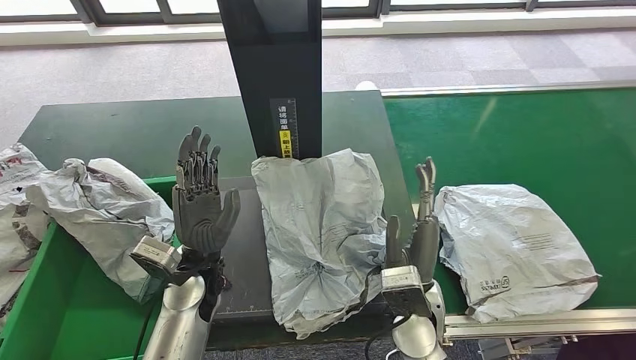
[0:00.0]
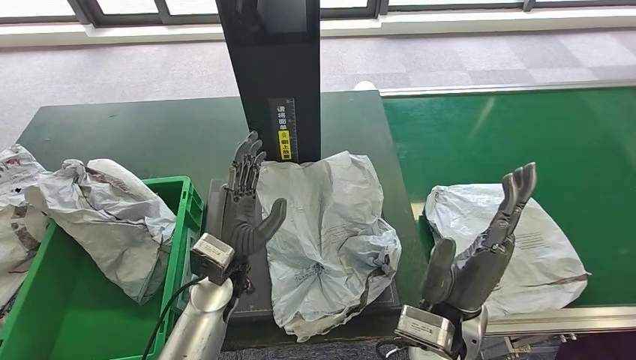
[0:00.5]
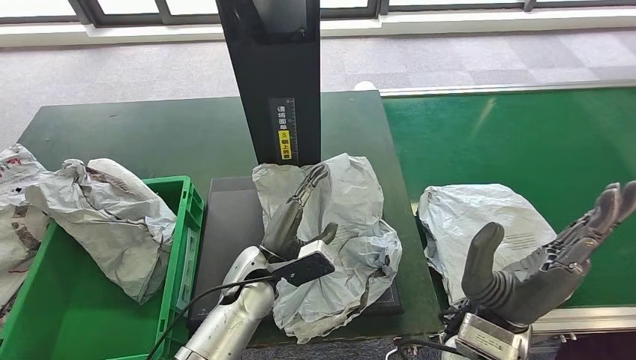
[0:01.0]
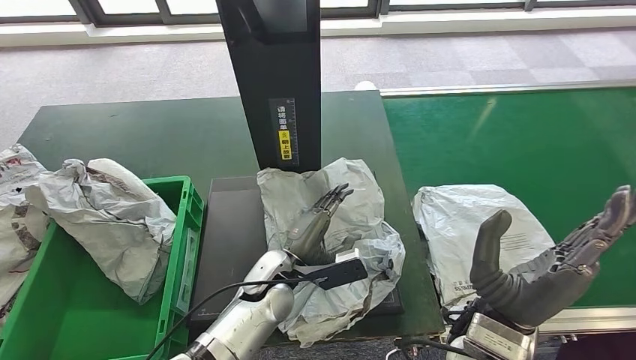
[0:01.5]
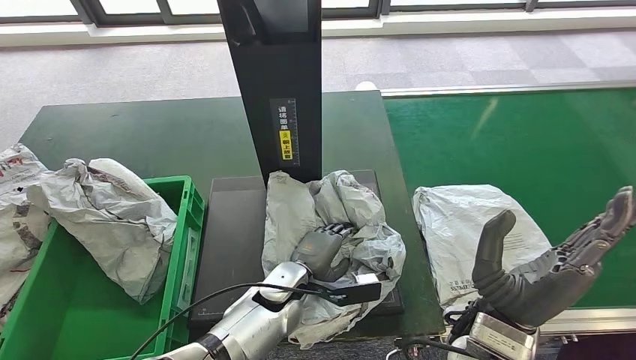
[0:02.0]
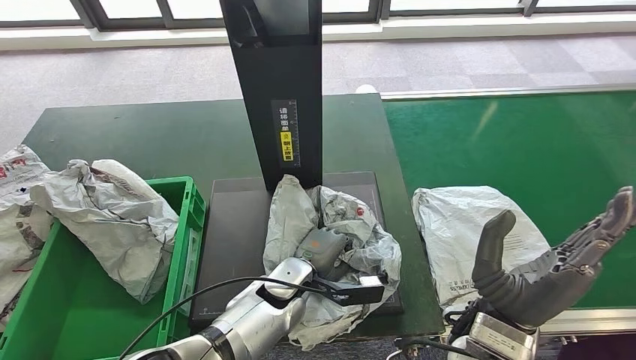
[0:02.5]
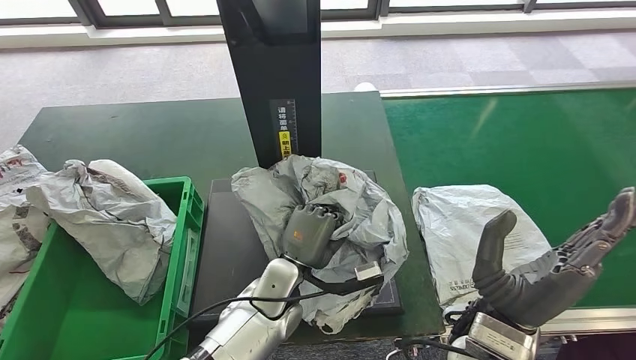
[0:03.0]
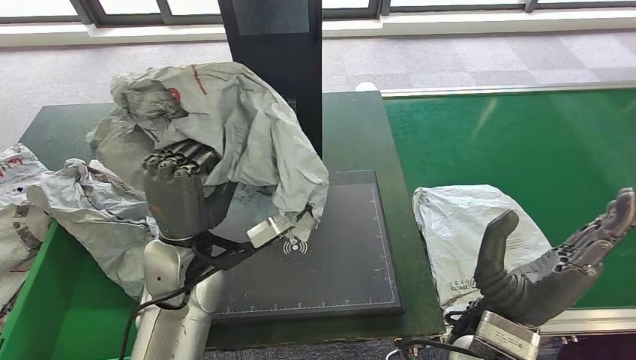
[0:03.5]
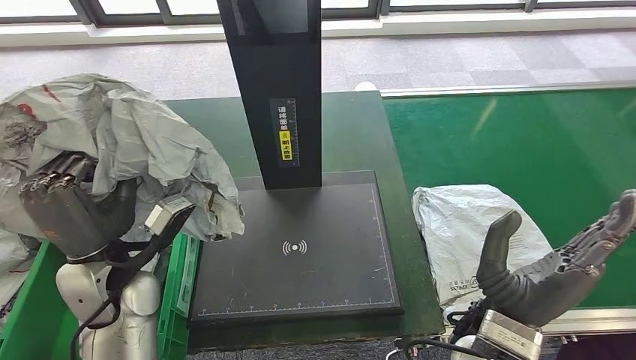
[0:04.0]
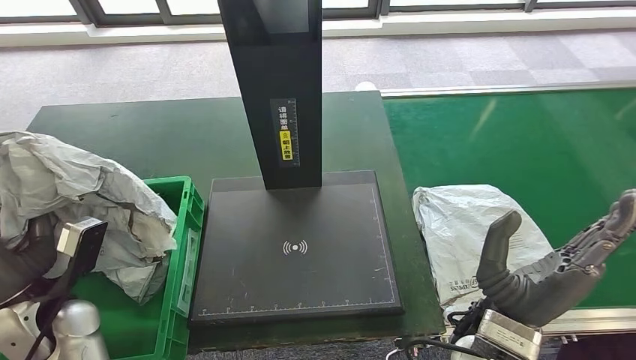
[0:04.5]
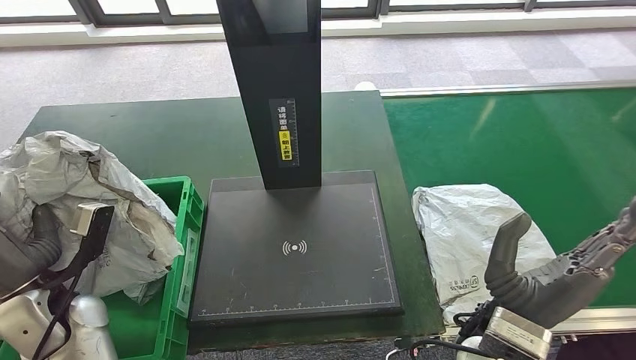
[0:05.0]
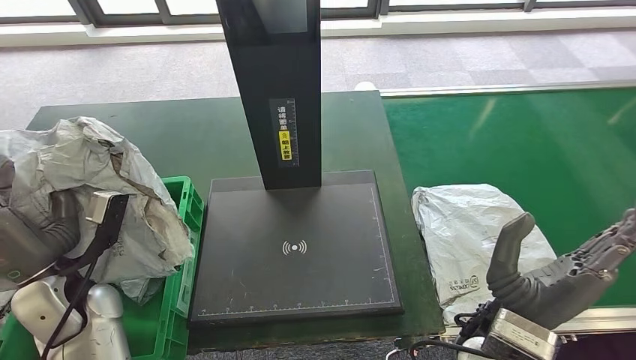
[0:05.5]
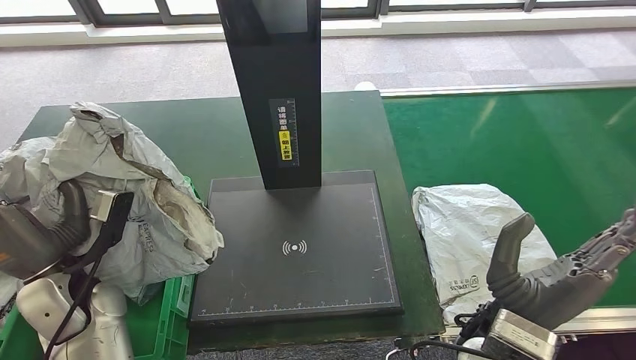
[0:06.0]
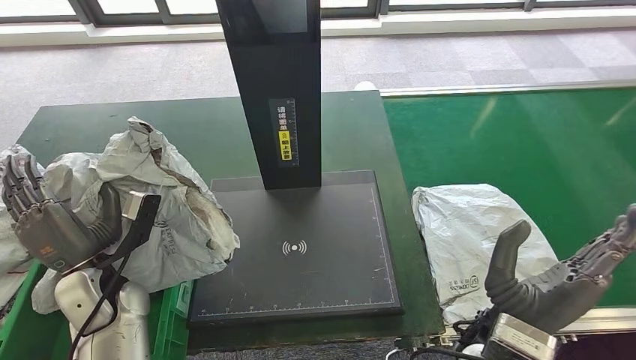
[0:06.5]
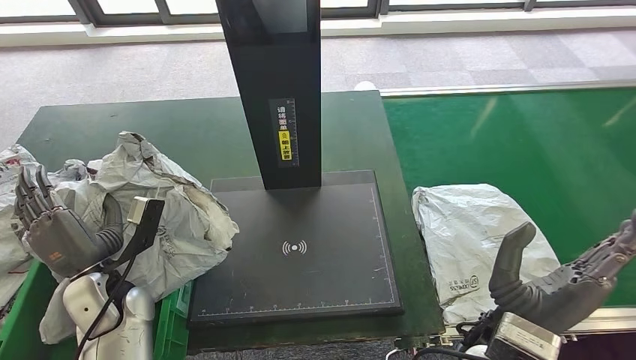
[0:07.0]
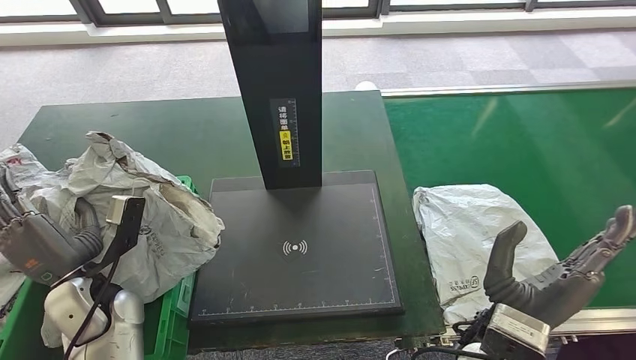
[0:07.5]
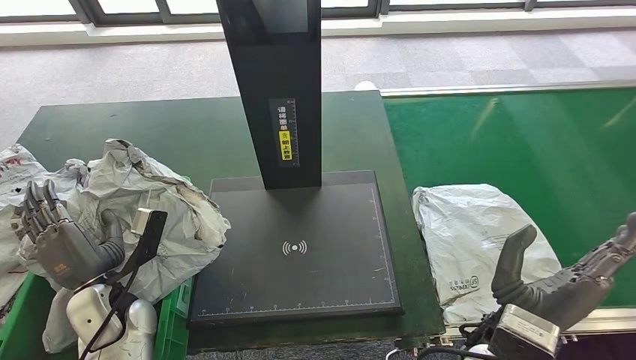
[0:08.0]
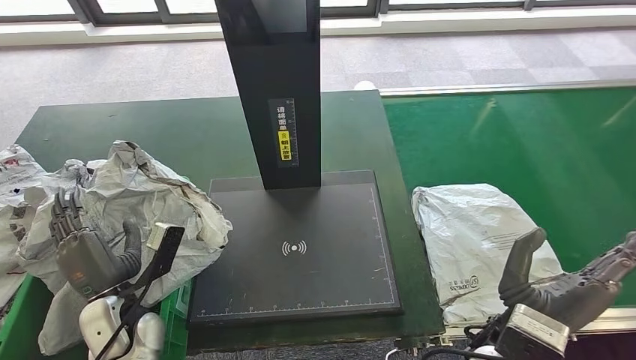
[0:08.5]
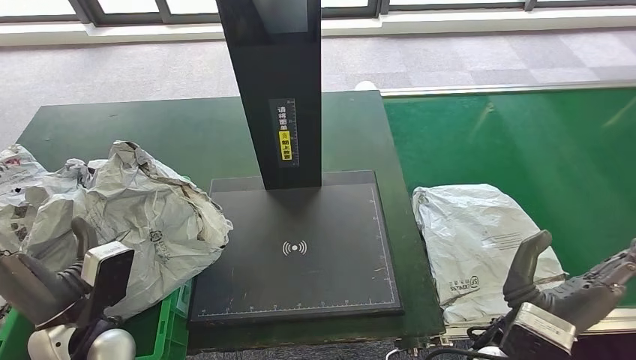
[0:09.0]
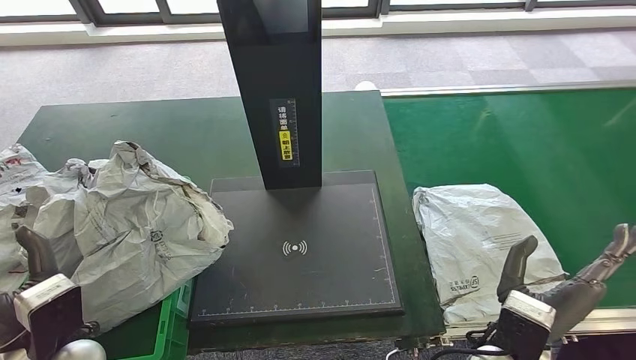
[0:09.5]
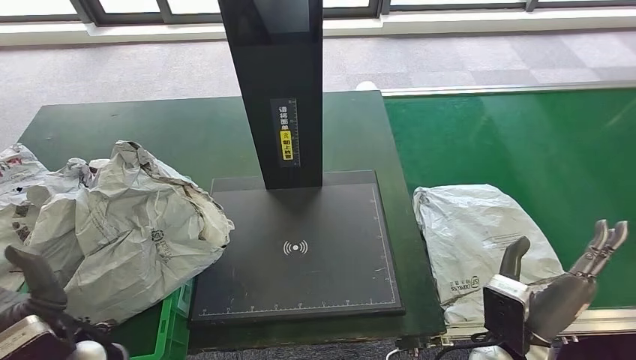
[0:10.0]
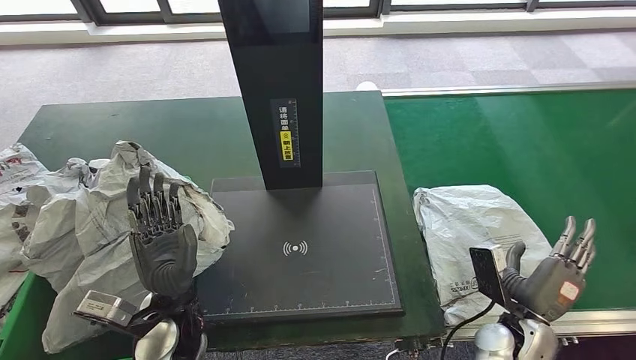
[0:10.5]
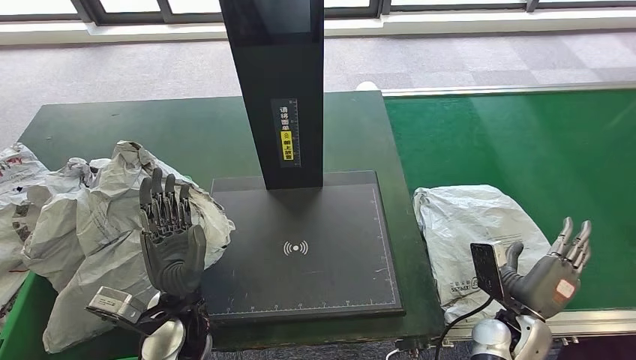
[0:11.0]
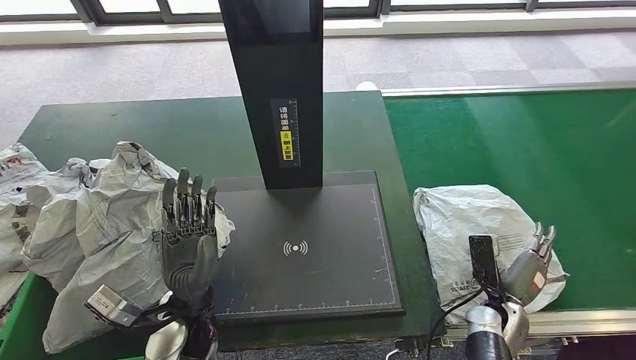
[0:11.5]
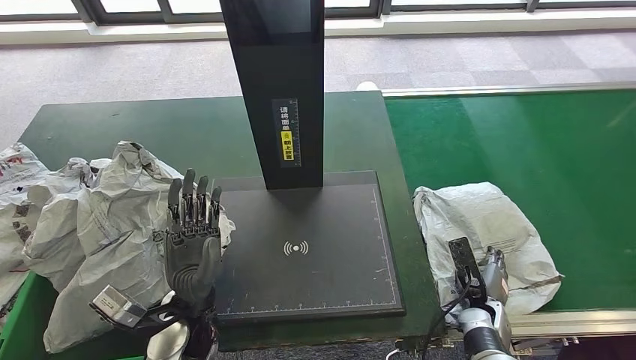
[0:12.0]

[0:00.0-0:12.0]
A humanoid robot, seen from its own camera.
Step, 0:01.0 to 0:03.5: Pick up the parcel from the inbound machine.
Step, 0:04.0 to 0:09.0: Place the parcel into the delivery box.
0:06.0 to 0:08.0: The left hand heads downward, covering roughly 5 cm.
0:08.0 to 0:10.0: The right hand shifts by approximately 5 cm; the left hand travels backward by about 5 cm.
0:10.0 to 0:12.0: The right hand shifts roughly 15 cm downward and forward, while the left hand goes roughly 15 cm to the right.

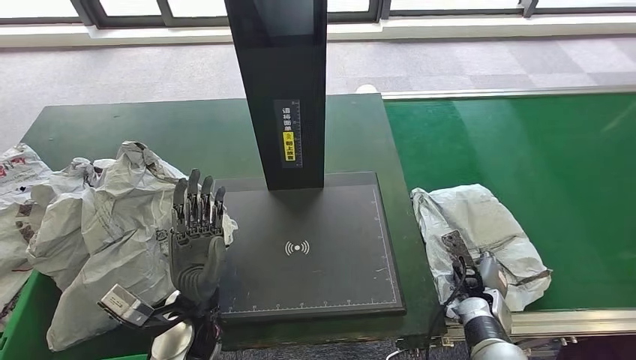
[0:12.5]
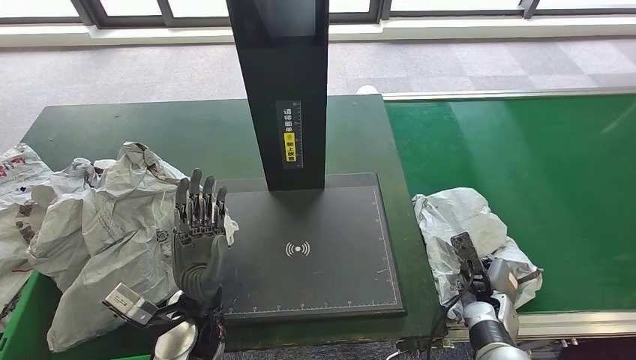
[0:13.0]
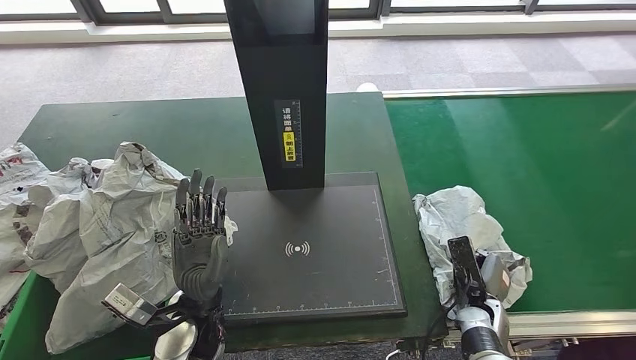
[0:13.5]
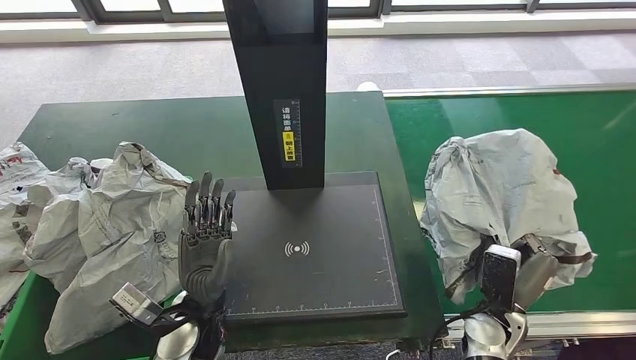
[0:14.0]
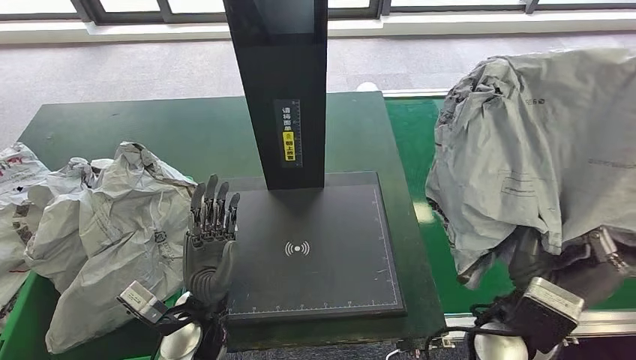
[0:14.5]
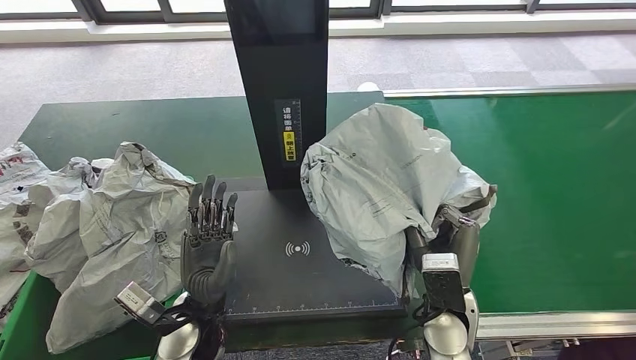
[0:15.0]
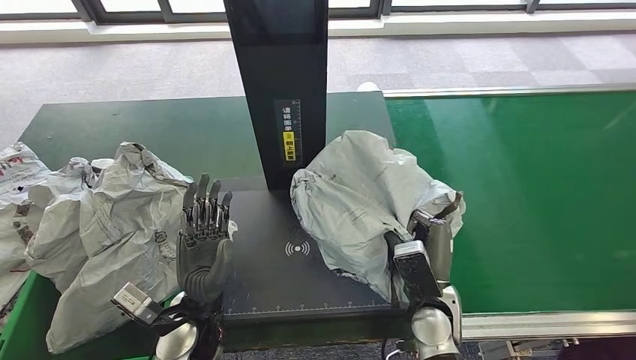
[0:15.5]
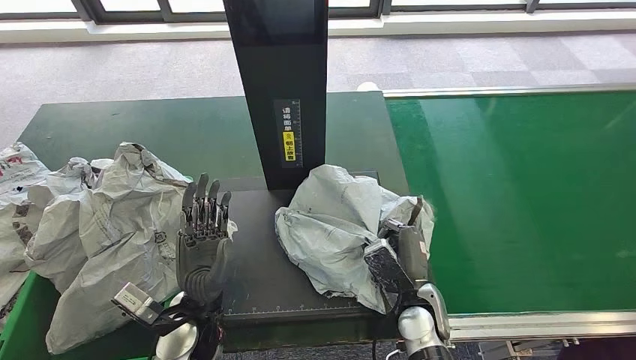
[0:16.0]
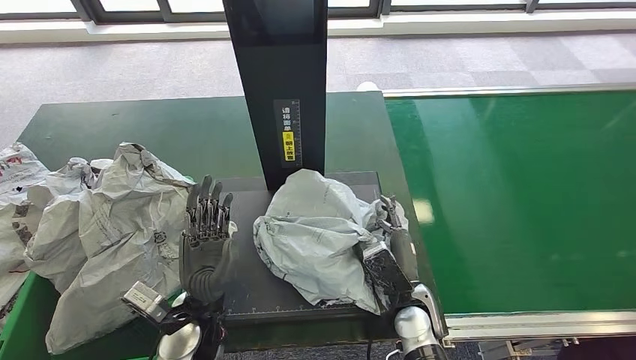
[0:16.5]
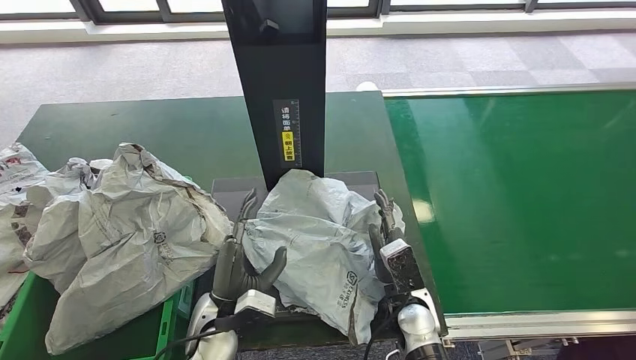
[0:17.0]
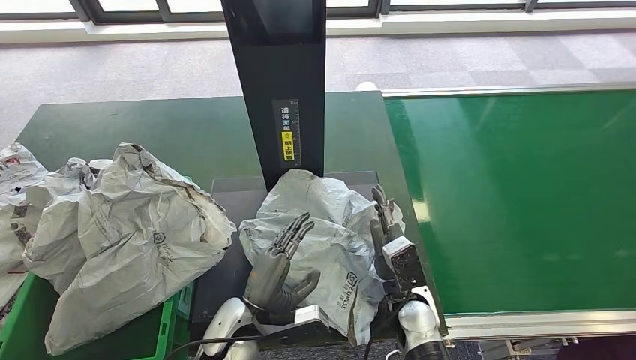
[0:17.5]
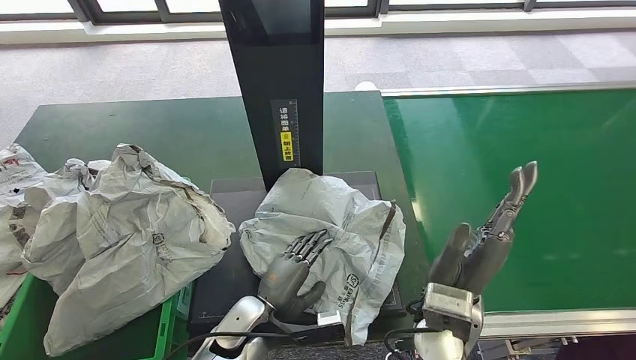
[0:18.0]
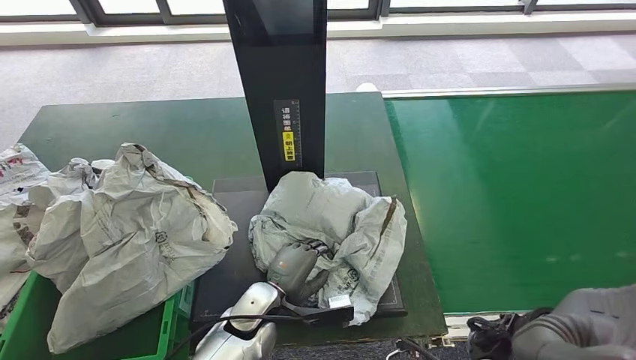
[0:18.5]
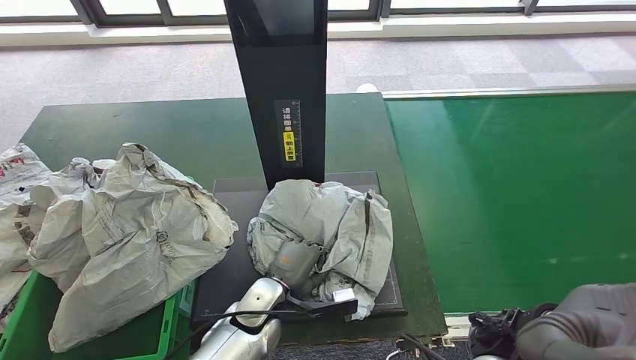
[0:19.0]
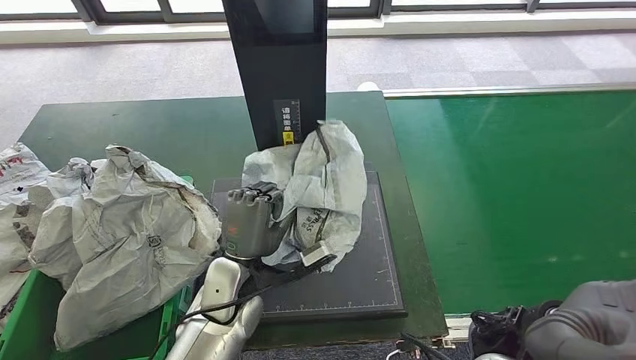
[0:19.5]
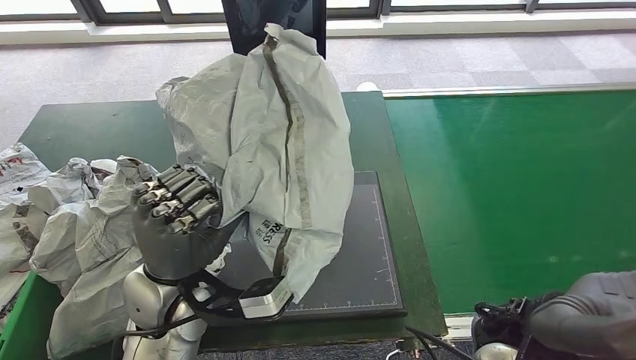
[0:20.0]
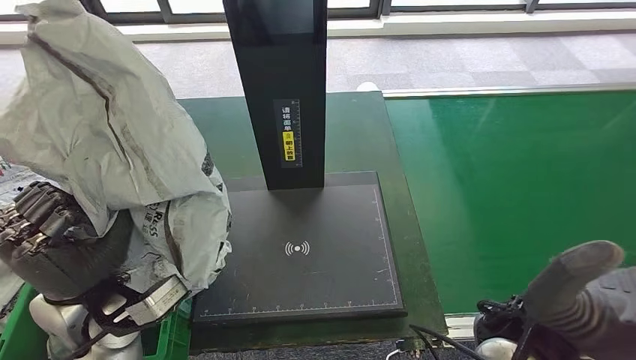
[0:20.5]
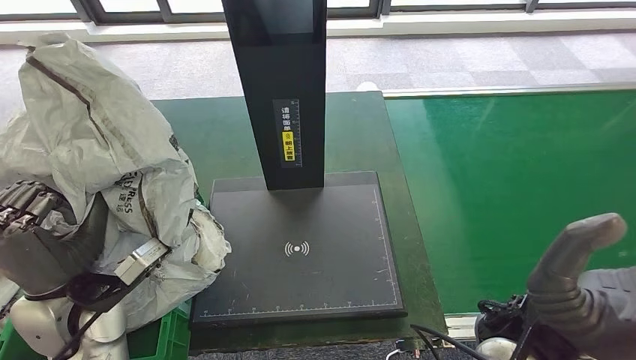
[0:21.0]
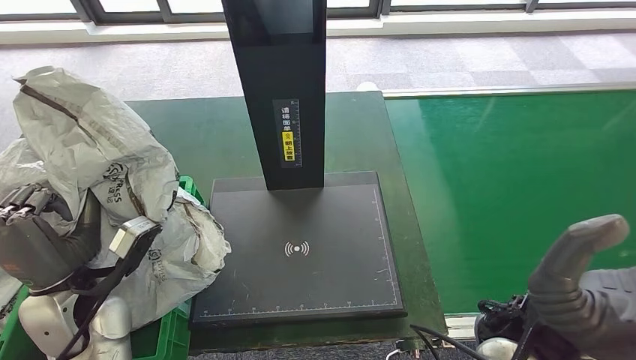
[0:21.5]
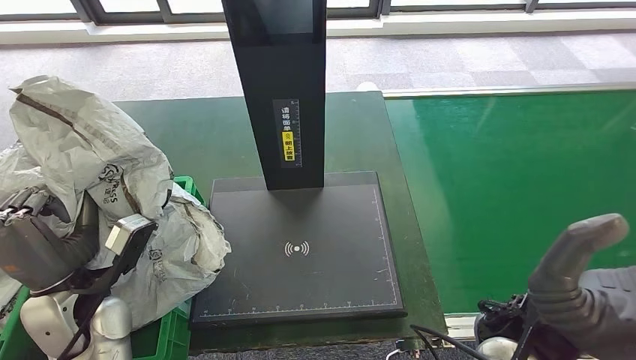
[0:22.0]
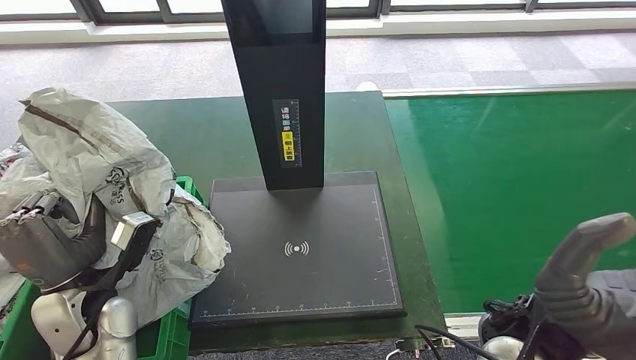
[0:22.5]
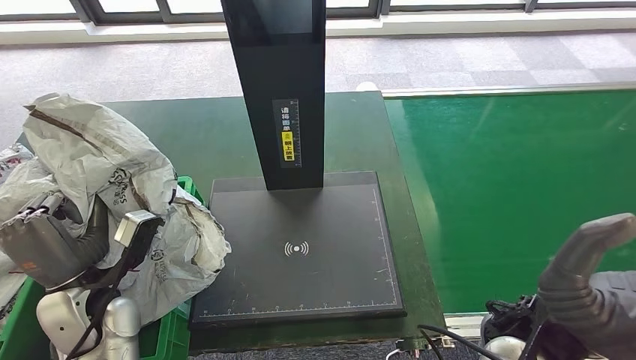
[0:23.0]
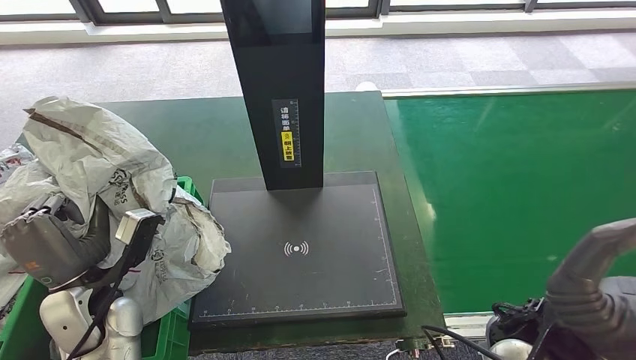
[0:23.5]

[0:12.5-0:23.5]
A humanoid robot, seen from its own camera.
Step, 0:14.5 to 0:17.5: Place the parcel onto the inbound machine.
Step, 0:18.0 to 0:20.0: Pick up the parcel from the inbound machine.
0:21.5 to 0:23.5: There are only small adjustments of the hands.
